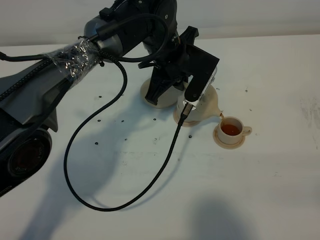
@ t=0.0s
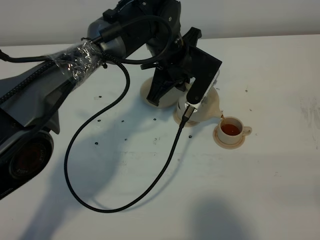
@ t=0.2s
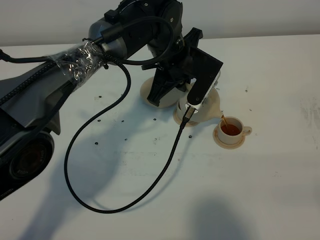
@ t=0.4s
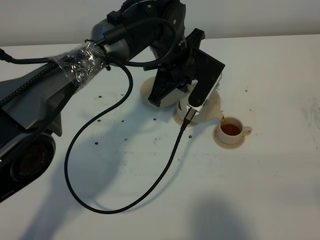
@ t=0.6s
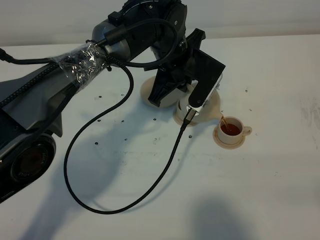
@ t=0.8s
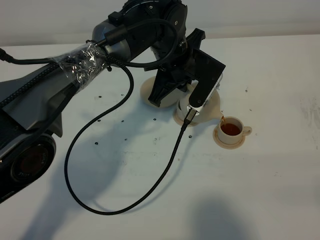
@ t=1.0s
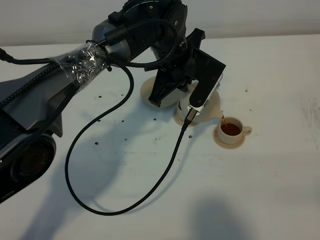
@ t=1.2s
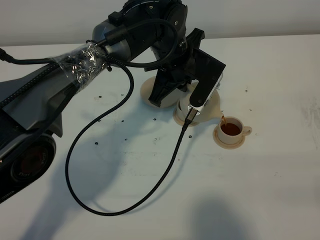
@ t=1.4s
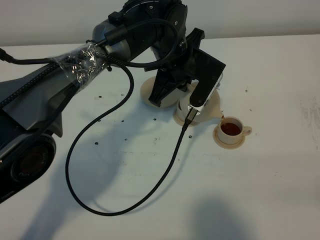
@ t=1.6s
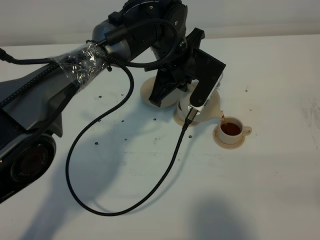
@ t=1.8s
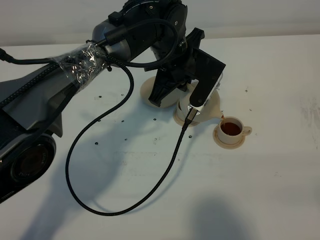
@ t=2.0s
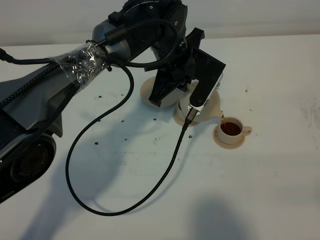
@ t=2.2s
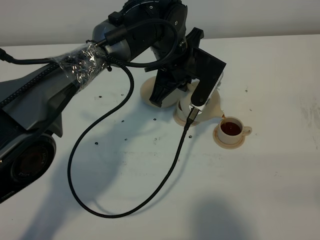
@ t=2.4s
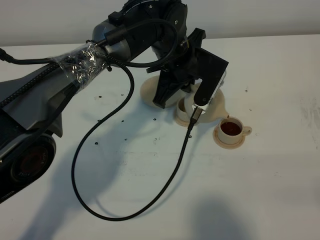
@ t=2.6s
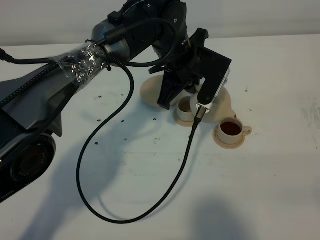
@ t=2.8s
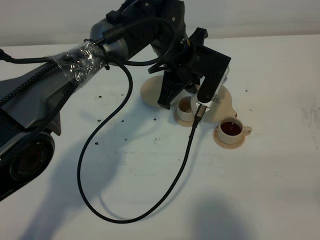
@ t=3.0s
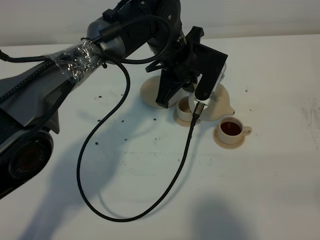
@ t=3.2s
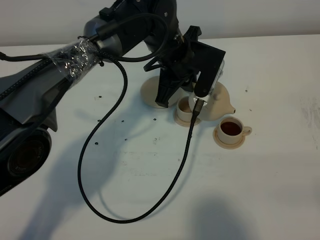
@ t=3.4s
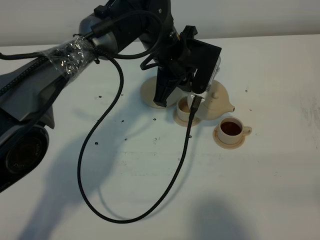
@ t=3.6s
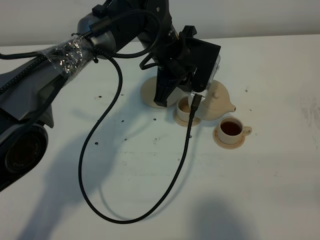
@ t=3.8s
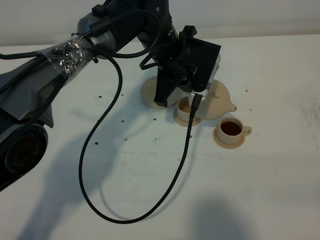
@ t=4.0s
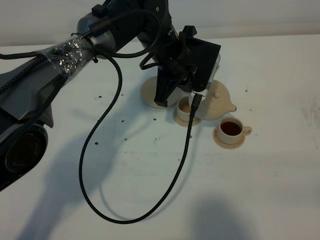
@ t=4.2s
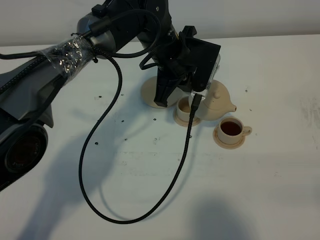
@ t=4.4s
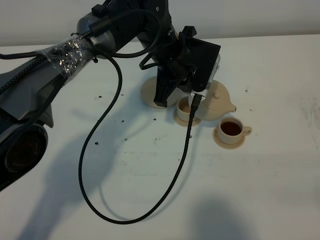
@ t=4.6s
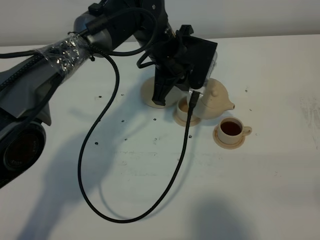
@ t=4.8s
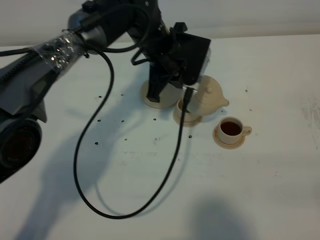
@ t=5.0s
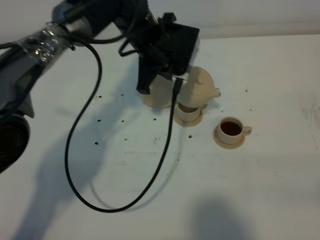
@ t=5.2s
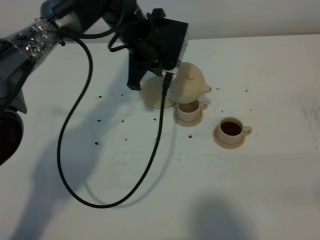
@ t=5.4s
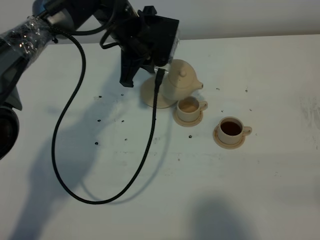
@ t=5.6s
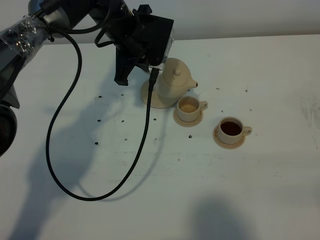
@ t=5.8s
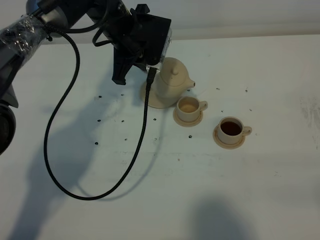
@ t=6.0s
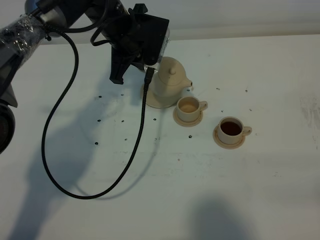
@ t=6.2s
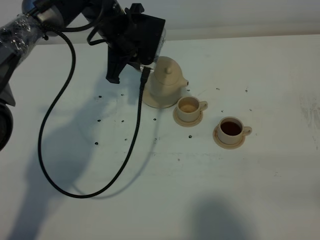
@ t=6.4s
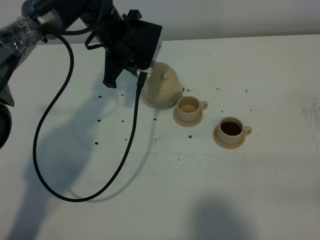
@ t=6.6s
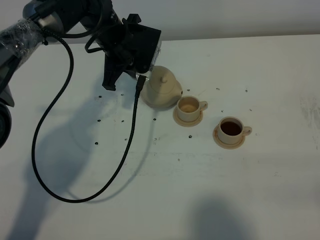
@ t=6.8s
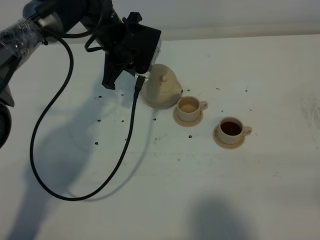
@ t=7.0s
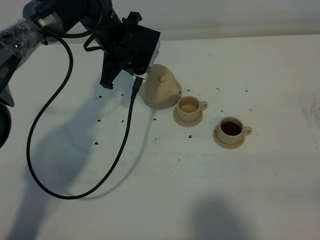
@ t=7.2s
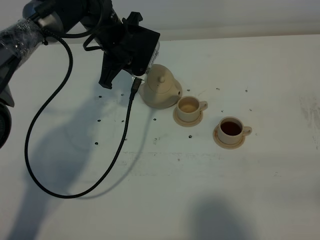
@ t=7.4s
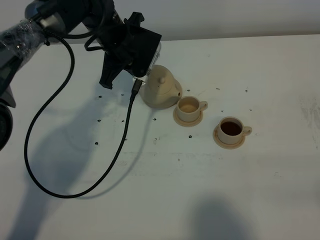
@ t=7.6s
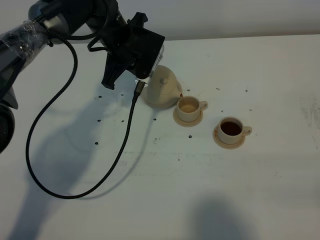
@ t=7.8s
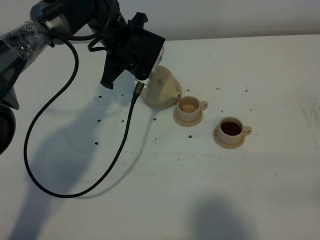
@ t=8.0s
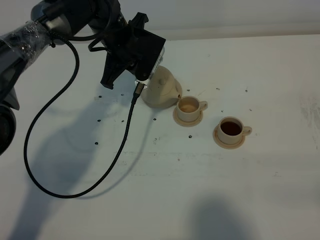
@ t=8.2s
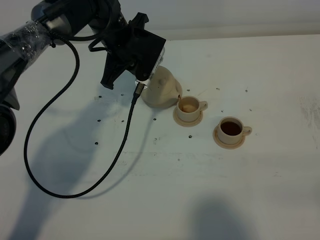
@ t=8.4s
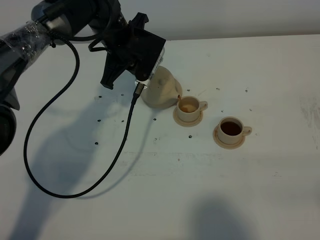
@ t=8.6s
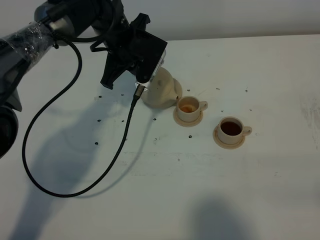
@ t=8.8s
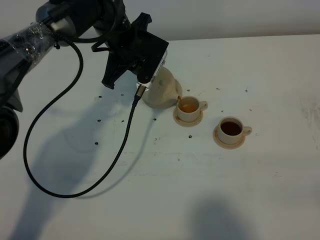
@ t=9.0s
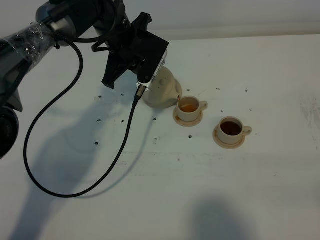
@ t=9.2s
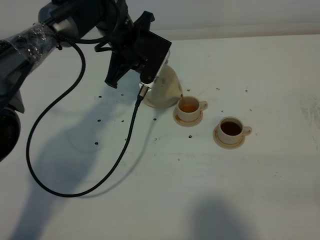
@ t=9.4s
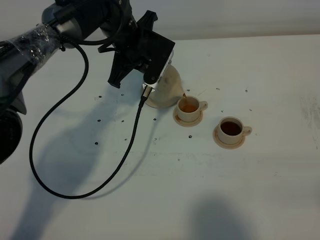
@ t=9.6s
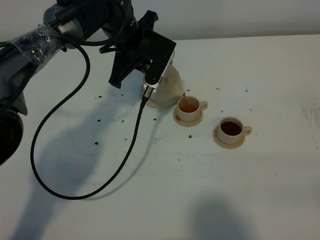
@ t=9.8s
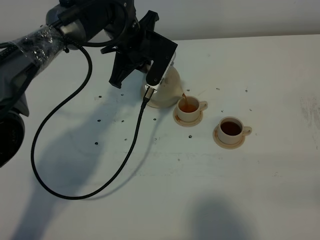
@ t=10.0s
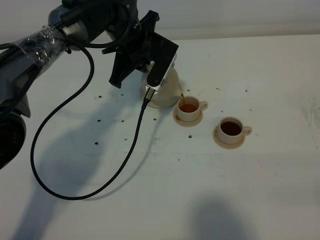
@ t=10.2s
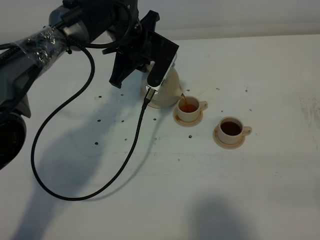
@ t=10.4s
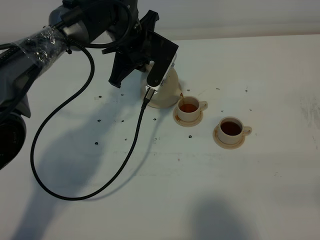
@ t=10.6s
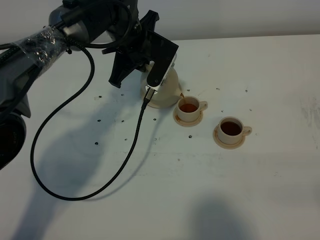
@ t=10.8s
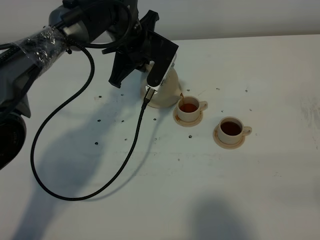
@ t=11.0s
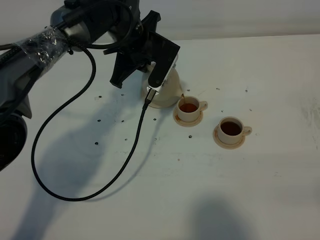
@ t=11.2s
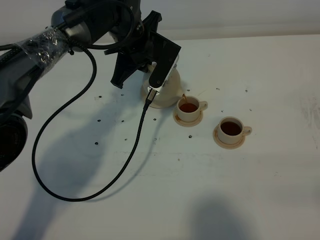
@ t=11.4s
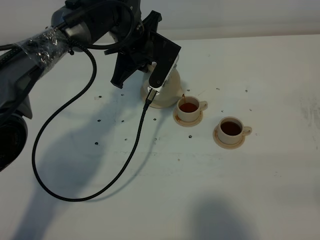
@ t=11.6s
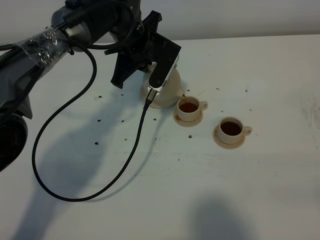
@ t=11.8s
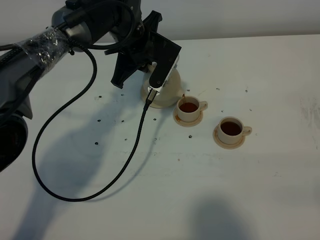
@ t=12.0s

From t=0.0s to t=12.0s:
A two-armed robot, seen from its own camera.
Task of the whole recording: grasp the brown teapot and pour the tea into the two brown teacups one by one, put the brown teapot back in its original place.
Step, from t=0.0s to t=4.4s: Pour tea into the teacup with the left gripper.
From t=0.0s to t=1.6s: Neither gripper changes place.
From t=1.6s to t=4.4s: The grippers make only small movements.
From t=4.4s to t=6.0s: The left gripper travels to the left by roughly 10 cm.
From t=6.0s to t=10.4s: The grippers stay close to where they were, moving slightly.
From t=10.4s to t=12.0s: Neither gripper changes place.

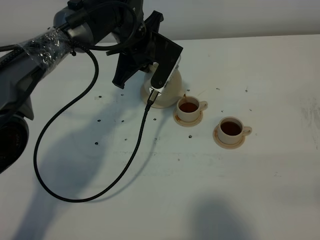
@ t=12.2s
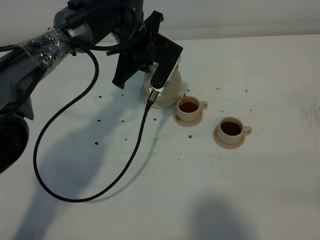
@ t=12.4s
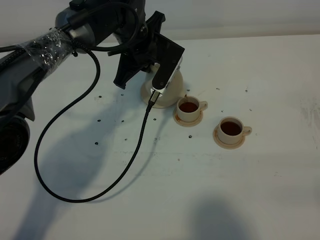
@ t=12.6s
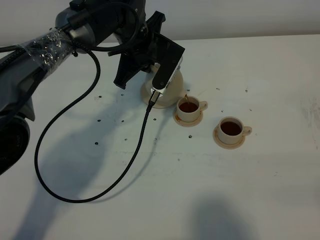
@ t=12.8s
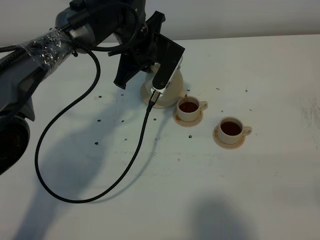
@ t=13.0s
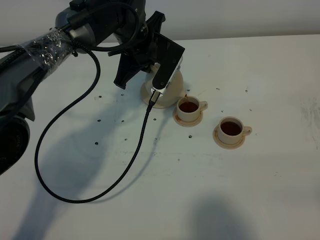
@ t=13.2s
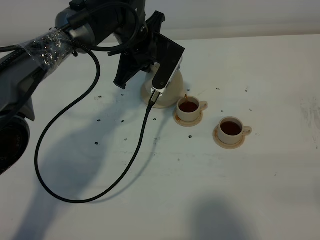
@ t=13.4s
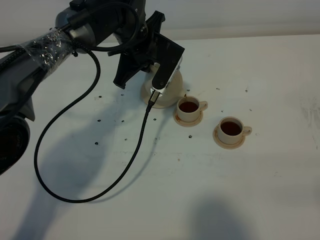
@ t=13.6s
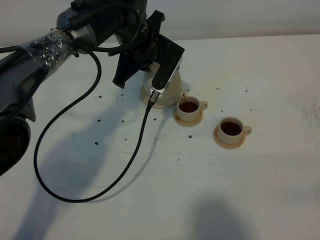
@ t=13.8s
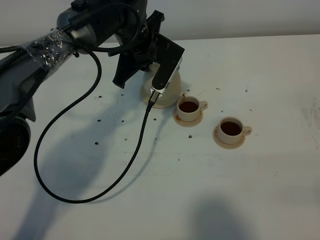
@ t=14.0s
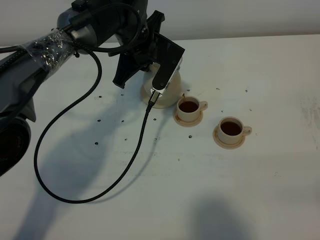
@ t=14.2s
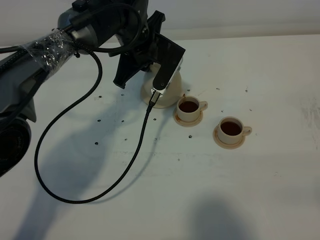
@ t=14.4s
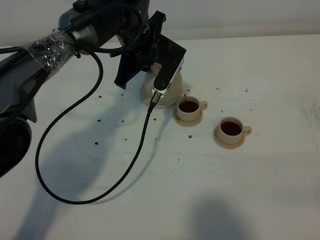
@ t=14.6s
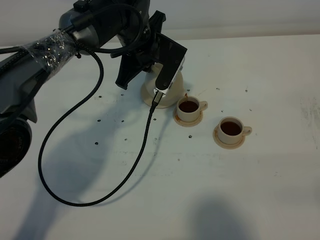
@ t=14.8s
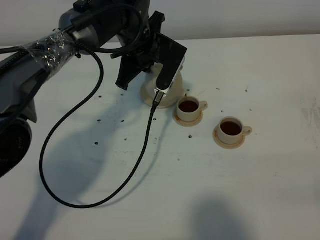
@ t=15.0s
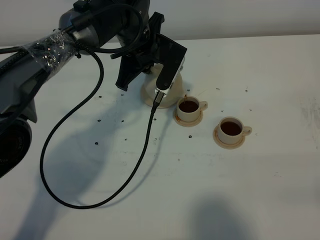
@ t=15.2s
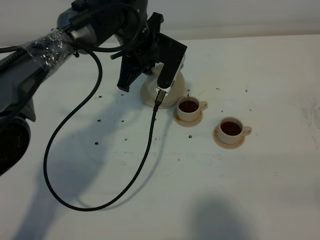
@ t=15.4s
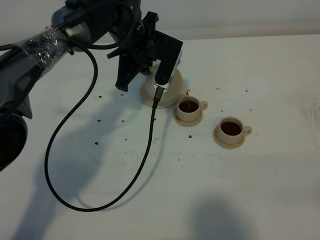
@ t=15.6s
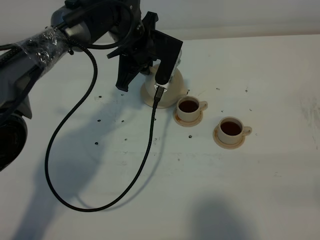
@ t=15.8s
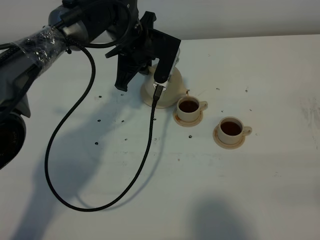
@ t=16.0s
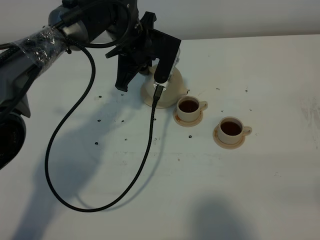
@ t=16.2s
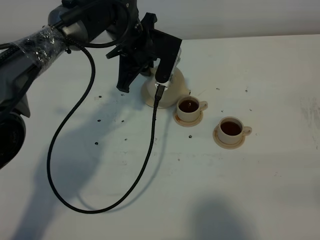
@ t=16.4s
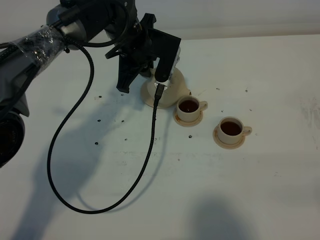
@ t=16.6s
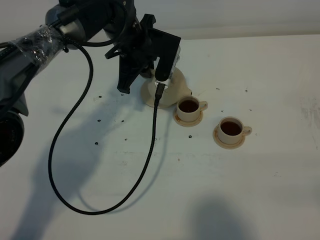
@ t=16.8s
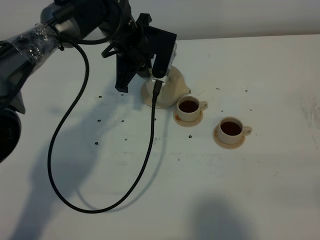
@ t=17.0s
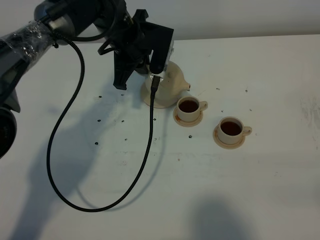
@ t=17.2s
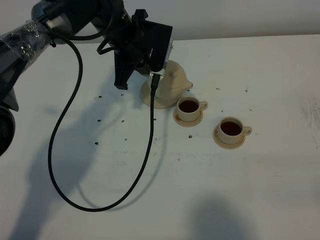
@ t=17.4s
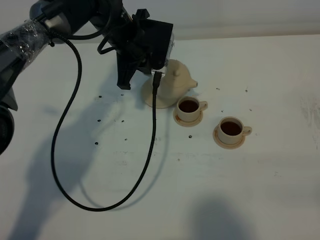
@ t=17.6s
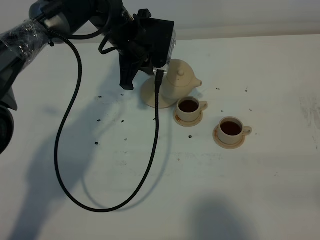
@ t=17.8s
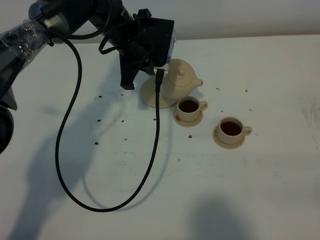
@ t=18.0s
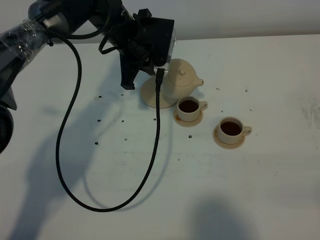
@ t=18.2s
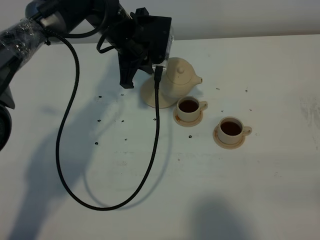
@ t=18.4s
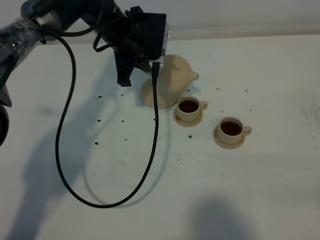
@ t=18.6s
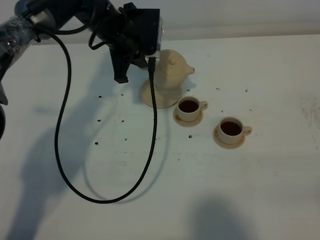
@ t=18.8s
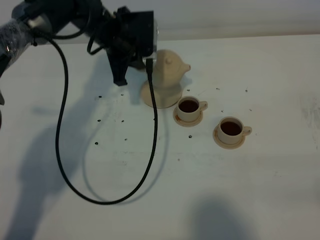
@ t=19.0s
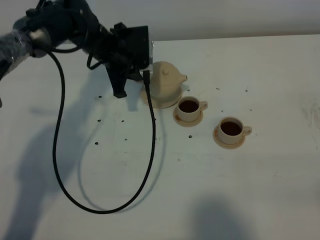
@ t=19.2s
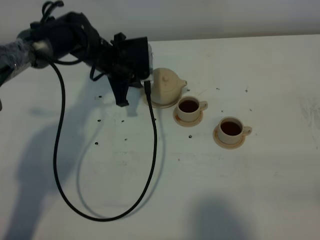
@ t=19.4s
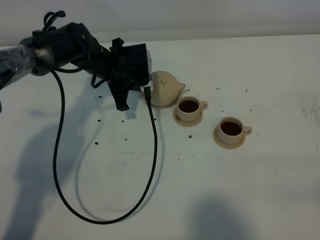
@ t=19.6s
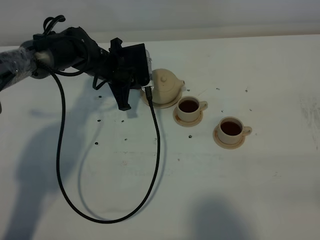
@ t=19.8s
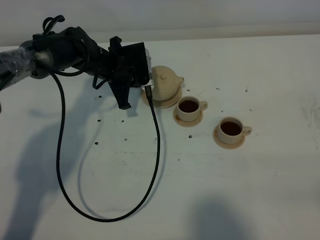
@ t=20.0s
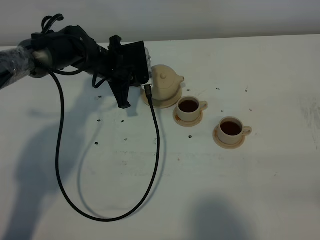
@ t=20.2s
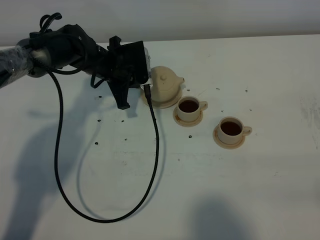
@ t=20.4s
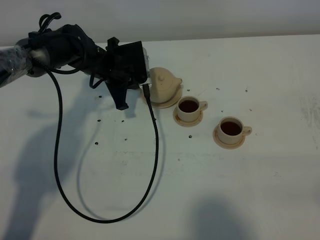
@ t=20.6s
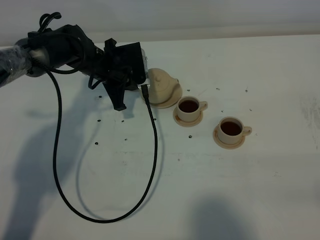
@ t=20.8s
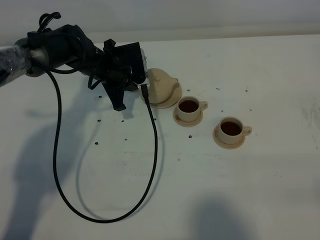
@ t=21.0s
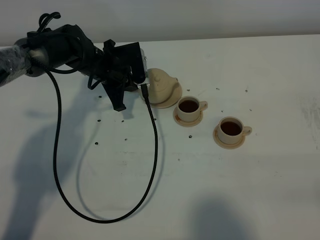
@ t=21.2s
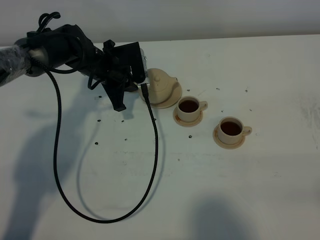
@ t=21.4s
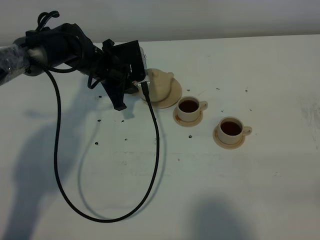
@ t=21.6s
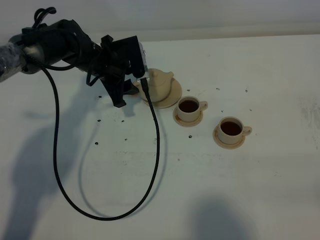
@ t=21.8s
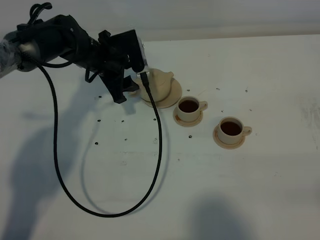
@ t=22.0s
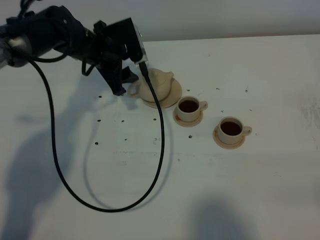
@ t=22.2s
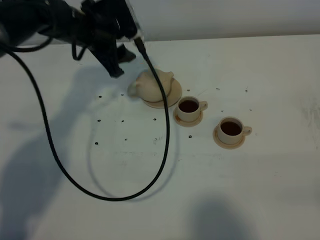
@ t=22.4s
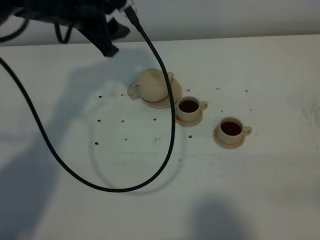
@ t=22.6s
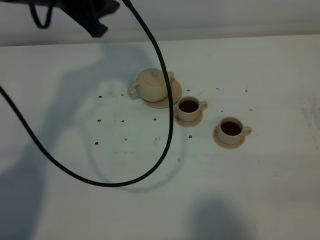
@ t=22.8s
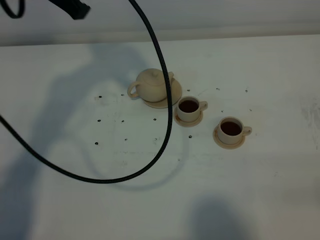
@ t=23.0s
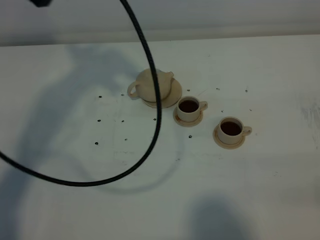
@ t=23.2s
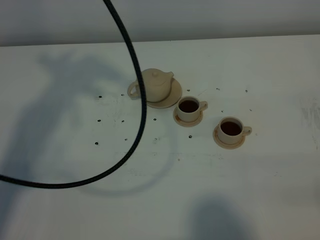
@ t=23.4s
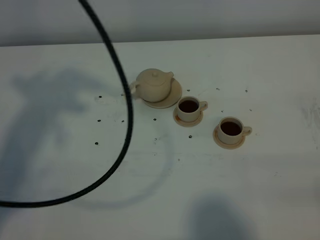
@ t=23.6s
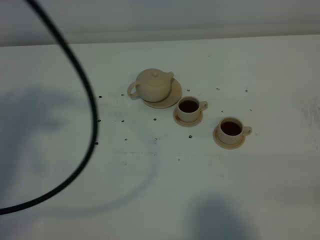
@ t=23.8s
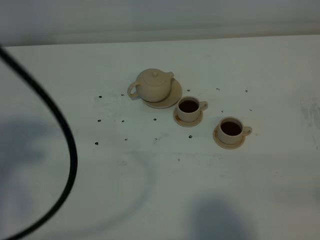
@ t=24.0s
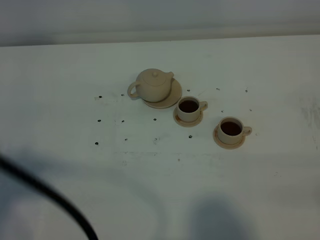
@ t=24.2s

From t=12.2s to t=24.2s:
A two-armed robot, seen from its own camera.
Task of the whole recording: grasp the brown teapot and pour the tea into the two brown teacups one by one, put the brown teapot back in its original place.
Step, from t=12.2s to t=17.2s: Pour tea into the teacup with the left gripper.
From t=12.2s to t=15.2s: Neither gripper changes place.
From t=15.2s to t=16.6s: The grippers stay close to where they were, moving slightly.
From t=16.6s to t=18.2s: The grippers make only small movements.
From t=18.2s to t=19.8s: The left gripper is displaced downward and to the left by roughly 10 cm.
From t=19.8s to t=21.2s: Both grippers stay put.
From t=21.2s to t=22.6s: The left gripper shifts some 15 cm upward, and opens its fingers.
From t=22.6s to t=24.2s: The left gripper heads backward and upward, covering about 40 cm.
